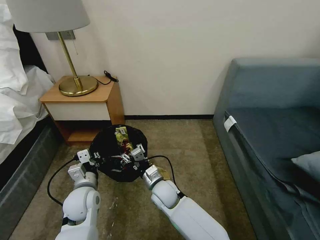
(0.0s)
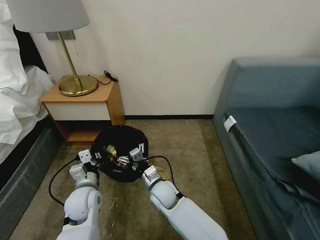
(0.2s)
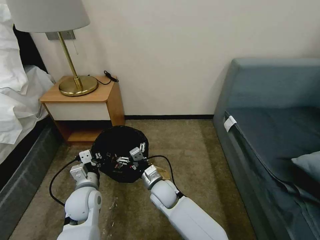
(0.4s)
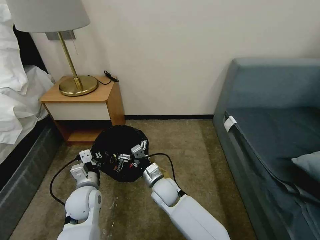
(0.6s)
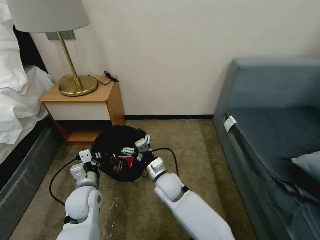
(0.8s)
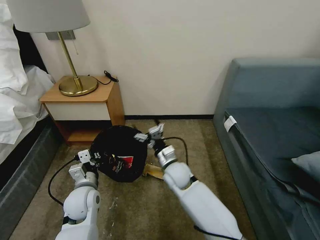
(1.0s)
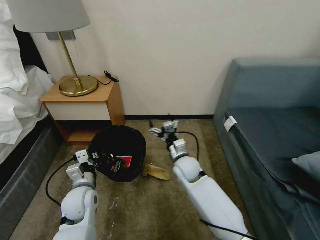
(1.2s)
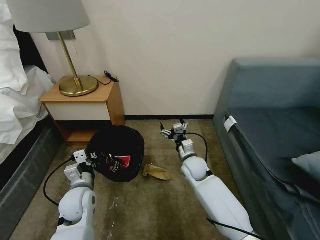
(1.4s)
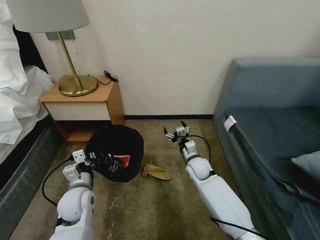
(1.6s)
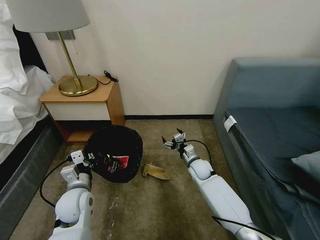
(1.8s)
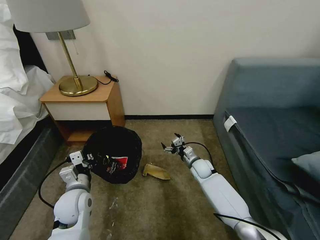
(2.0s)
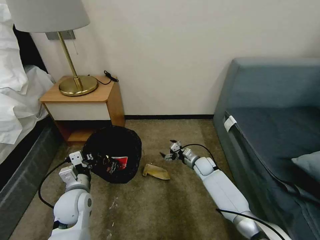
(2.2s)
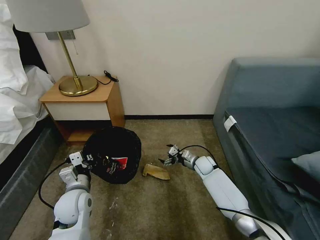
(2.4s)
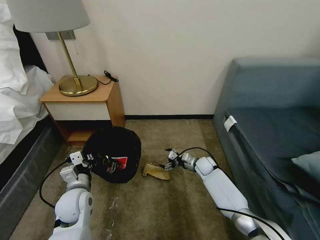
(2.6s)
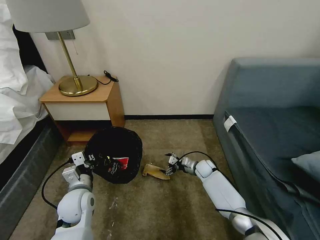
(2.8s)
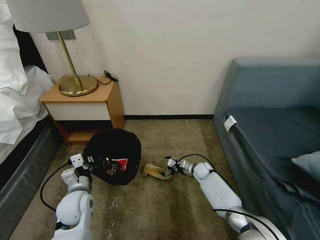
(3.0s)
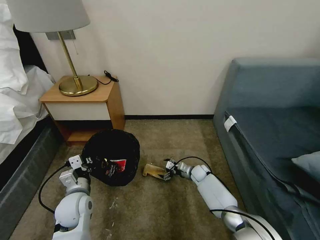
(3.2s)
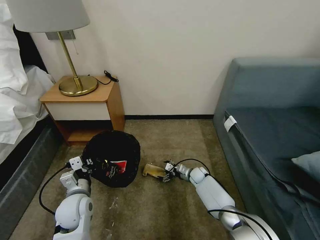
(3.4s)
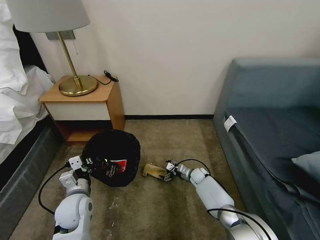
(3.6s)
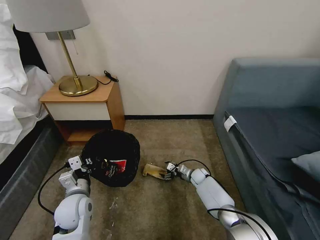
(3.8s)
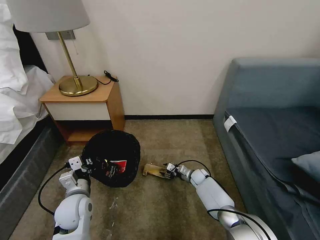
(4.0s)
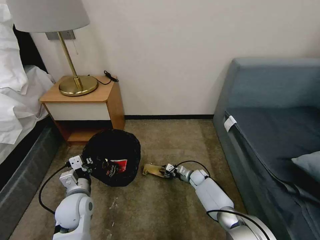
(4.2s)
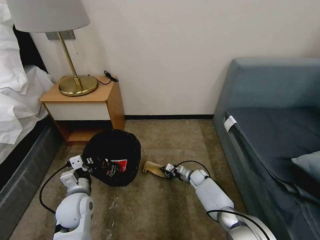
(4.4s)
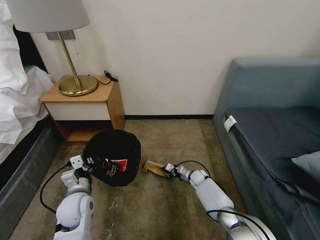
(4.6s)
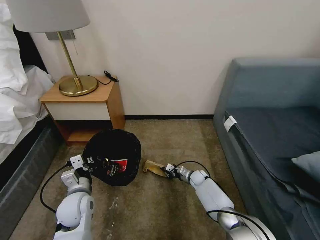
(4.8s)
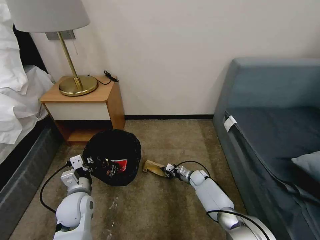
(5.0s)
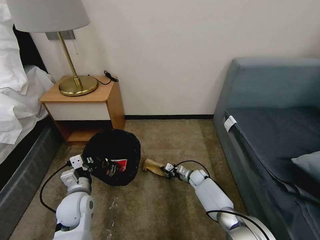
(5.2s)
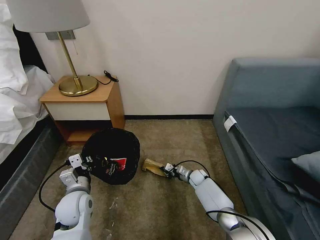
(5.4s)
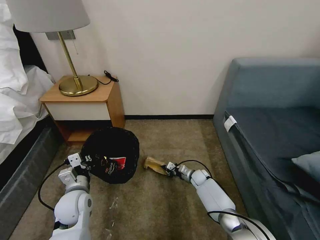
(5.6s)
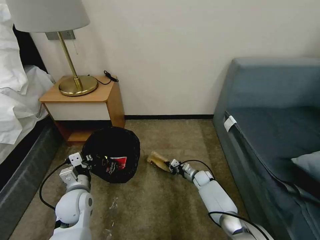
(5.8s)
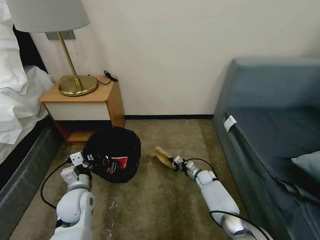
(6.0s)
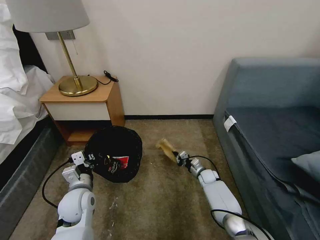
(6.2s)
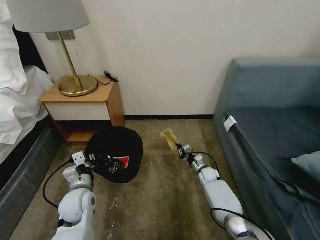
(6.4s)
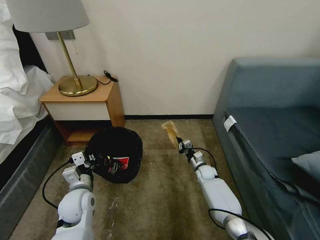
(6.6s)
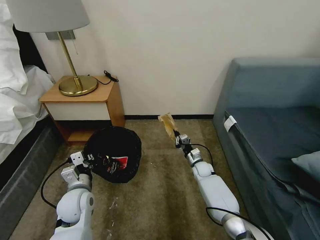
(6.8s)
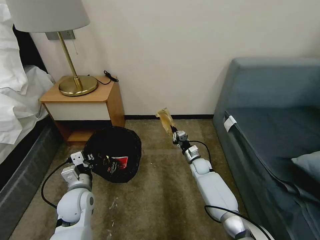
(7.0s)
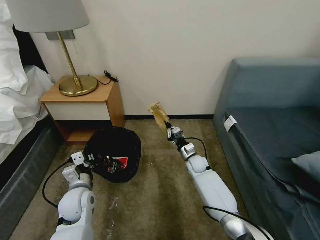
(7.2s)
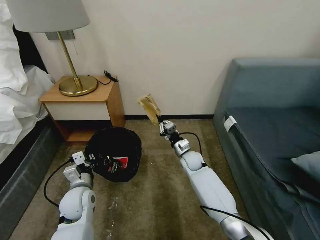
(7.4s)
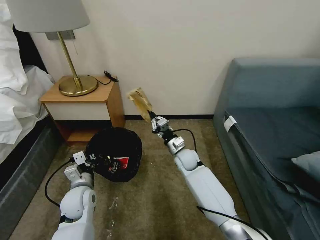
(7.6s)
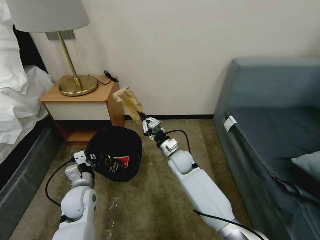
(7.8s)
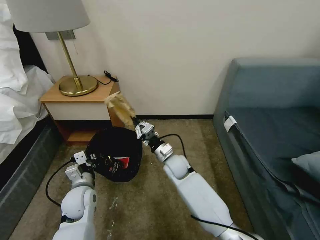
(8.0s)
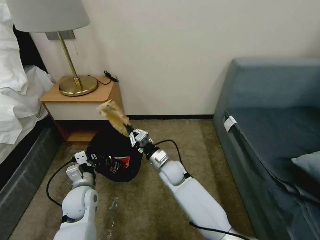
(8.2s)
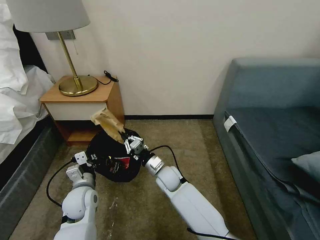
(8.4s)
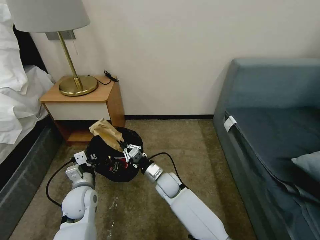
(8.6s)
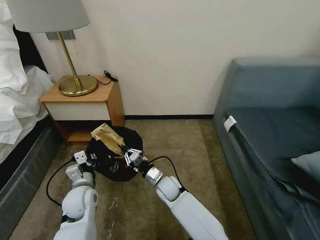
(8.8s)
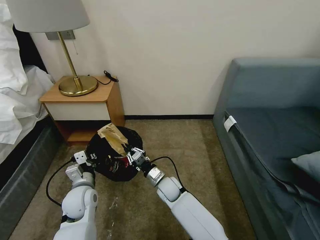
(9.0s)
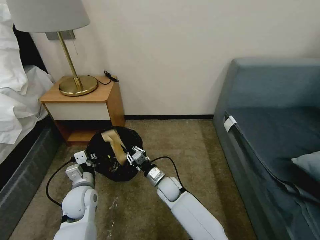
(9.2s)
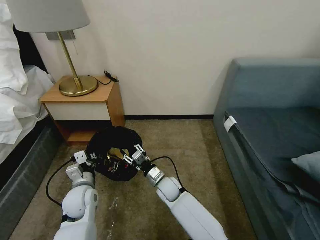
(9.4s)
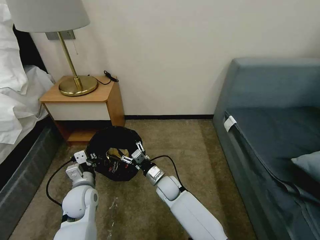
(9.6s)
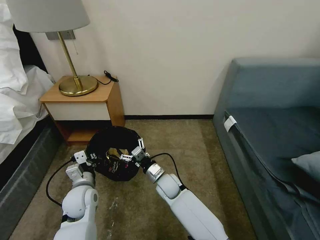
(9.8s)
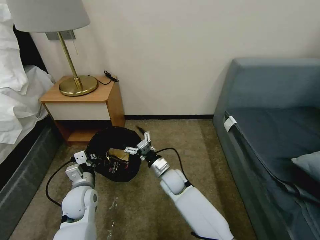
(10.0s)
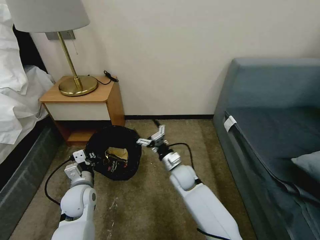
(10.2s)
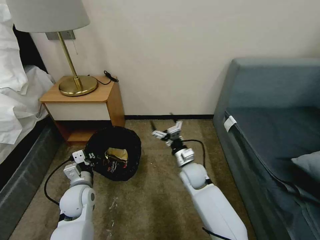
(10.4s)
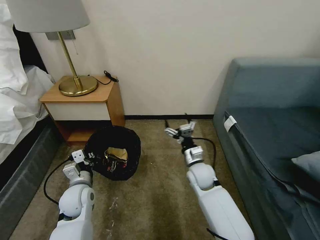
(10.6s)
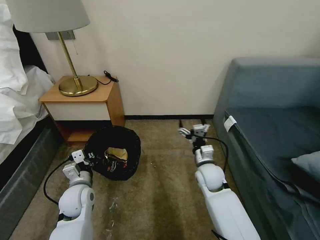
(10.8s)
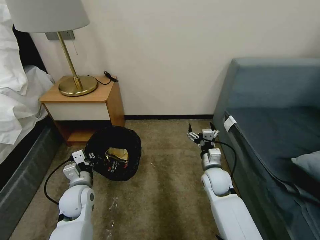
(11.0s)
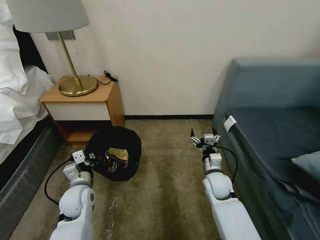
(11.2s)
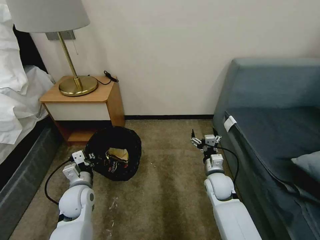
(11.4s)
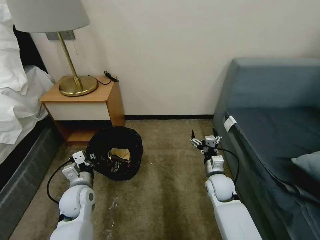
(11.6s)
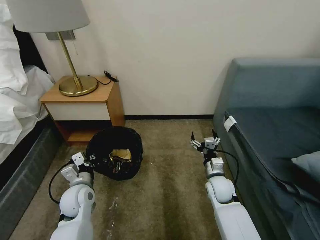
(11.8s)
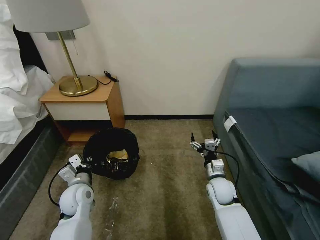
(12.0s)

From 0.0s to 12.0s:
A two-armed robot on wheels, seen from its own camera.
Task of the whole recording: Pick up the trash bin, then pick up the garbage on the floor and place it into the trash bin.
From 0.0s to 1.6s: The right gripper shifts approximately 20 cm to the right and forward.
From 1.6s to 3.0s: The right gripper travels downward, to the right and forward by some 15 cm.
From 3.0s to 4.4s: The right gripper closes up.
From 4.4s to 6.0s: The grippers move only a little.
From 6.0s to 7.6s: The right gripper goes roughly 20 cm upward and to the left.
From 7.6s to 9.0s: The right gripper moves backward, to the left and downward, roughly 15 cm.
From 9.0s to 10.4s: The right gripper moves to the right and upward, about 10 cm, and opens its fingers.
From 10.4s to 12.0s: The right gripper is displaced to the right by some 10 cm.

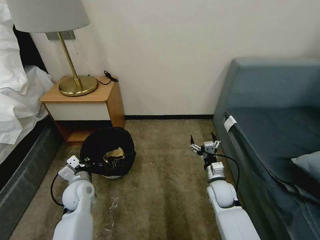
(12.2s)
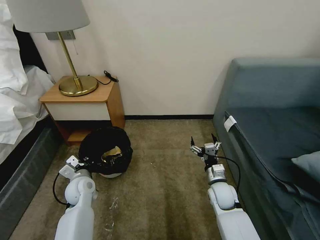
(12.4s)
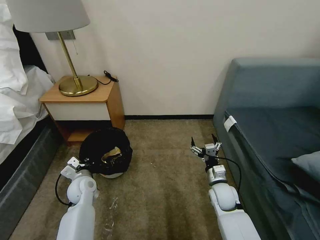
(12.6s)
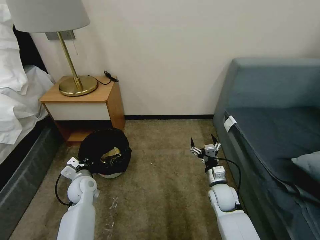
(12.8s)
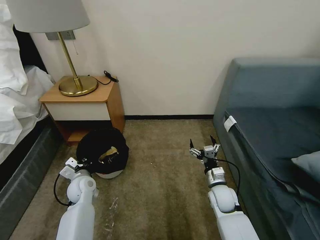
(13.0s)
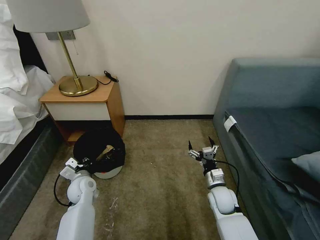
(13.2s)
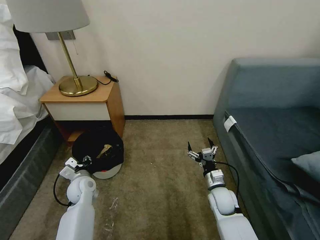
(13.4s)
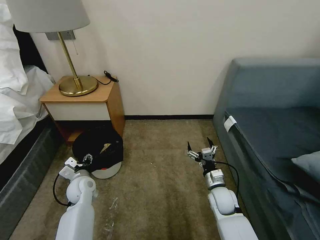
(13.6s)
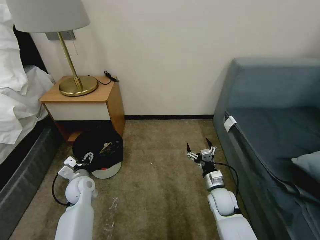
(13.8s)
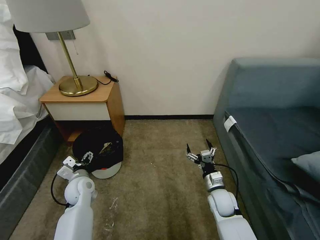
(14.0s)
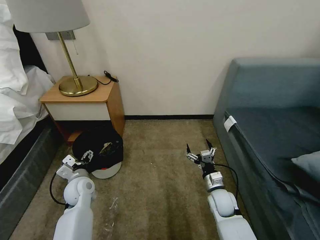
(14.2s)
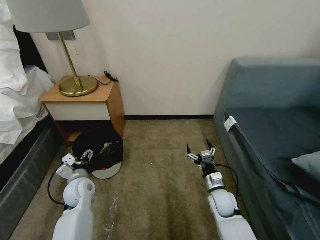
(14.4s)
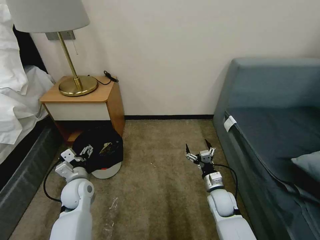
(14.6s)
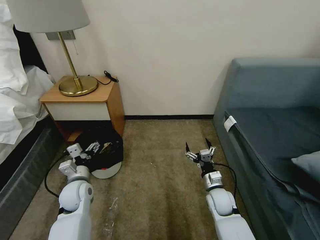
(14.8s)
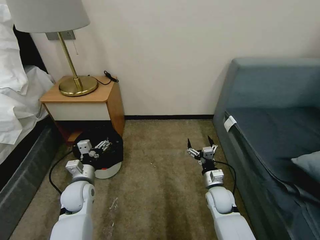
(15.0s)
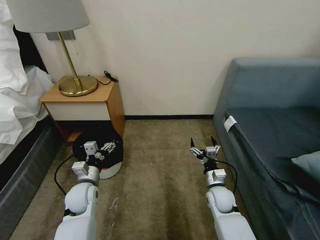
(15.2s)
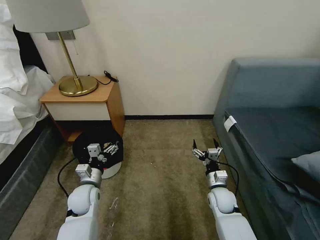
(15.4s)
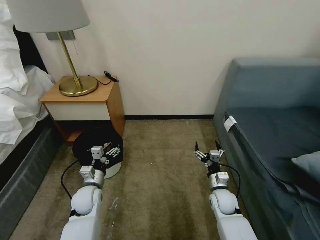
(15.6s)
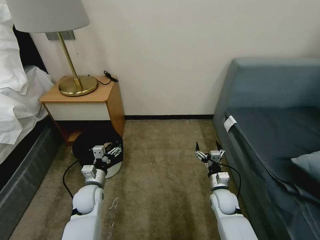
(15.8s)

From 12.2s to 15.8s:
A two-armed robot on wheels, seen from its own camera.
Task of the whole recording: Pick up the trash bin, then pick up the garbage on the floor and place it into the trash bin.
From 12.2s to 14.0s: The left gripper opens.

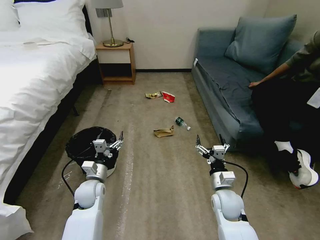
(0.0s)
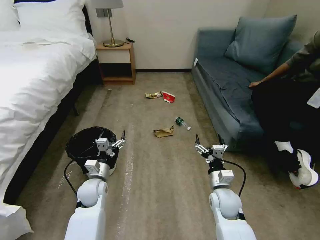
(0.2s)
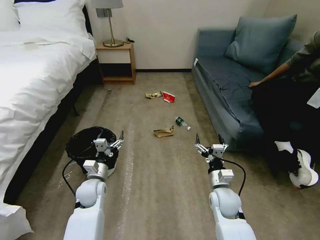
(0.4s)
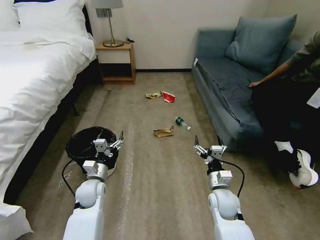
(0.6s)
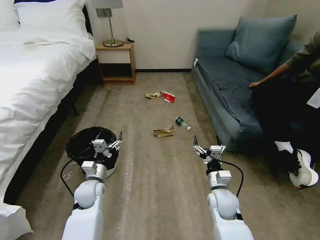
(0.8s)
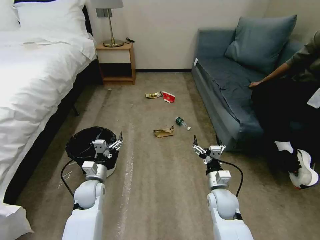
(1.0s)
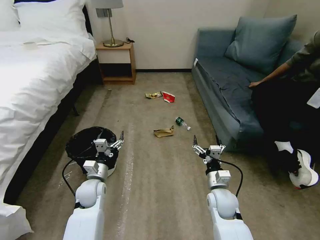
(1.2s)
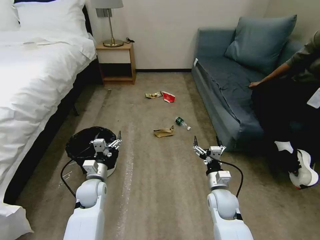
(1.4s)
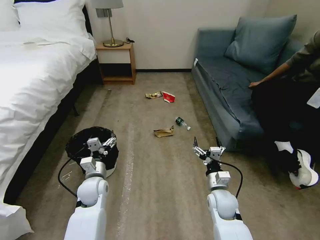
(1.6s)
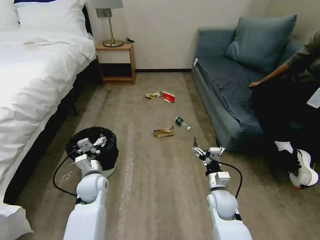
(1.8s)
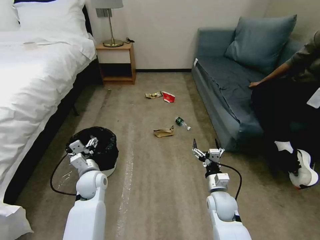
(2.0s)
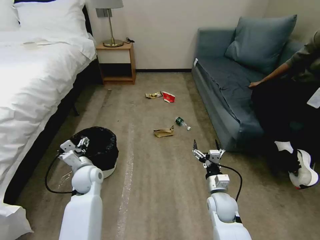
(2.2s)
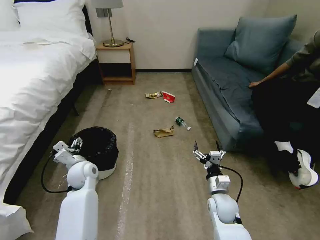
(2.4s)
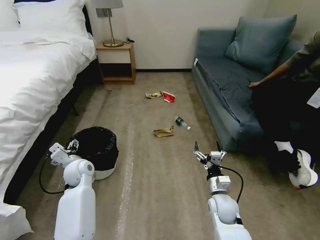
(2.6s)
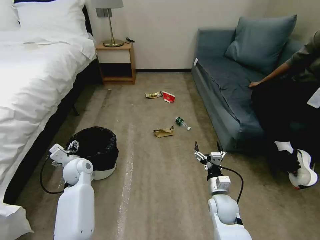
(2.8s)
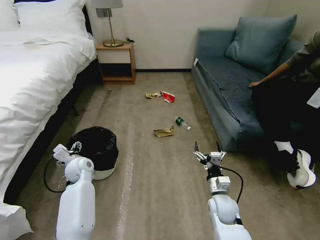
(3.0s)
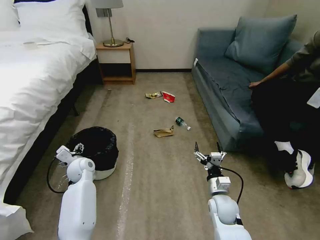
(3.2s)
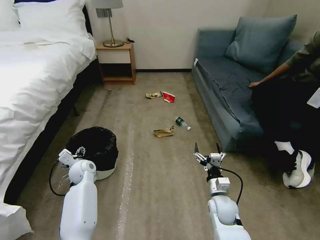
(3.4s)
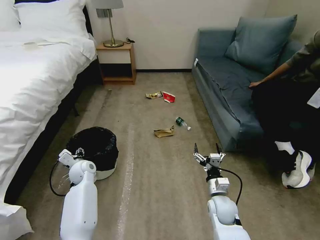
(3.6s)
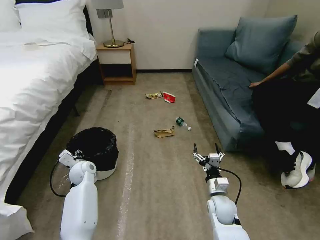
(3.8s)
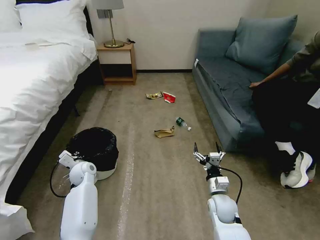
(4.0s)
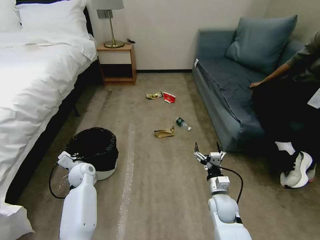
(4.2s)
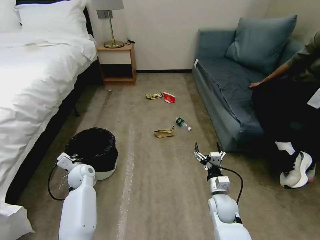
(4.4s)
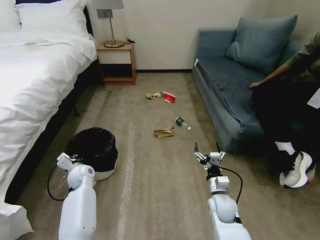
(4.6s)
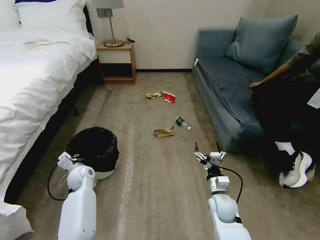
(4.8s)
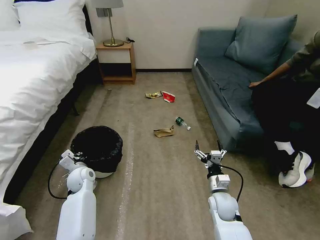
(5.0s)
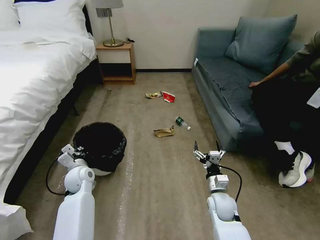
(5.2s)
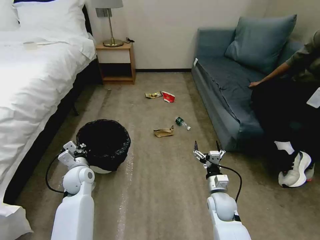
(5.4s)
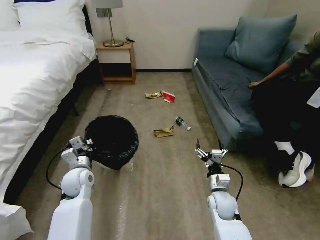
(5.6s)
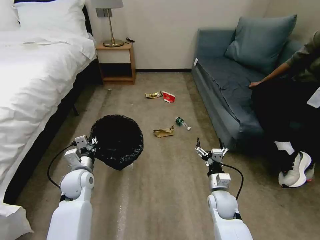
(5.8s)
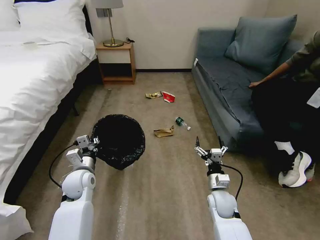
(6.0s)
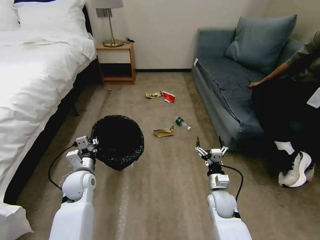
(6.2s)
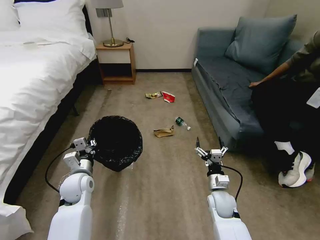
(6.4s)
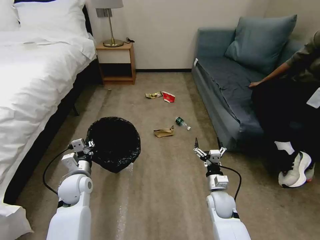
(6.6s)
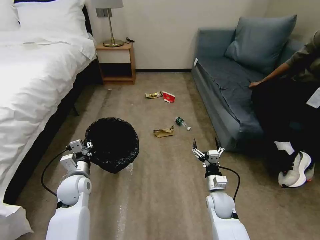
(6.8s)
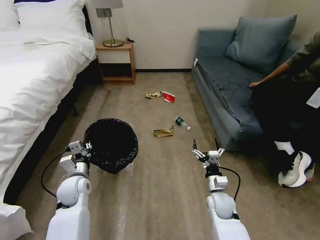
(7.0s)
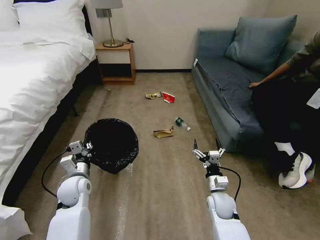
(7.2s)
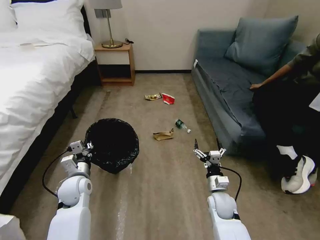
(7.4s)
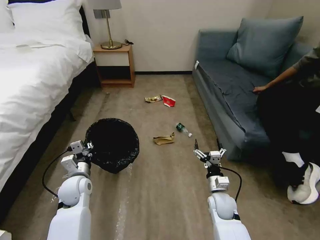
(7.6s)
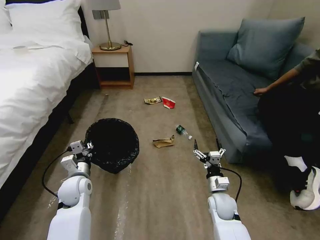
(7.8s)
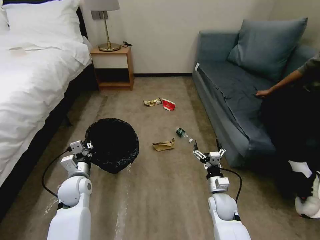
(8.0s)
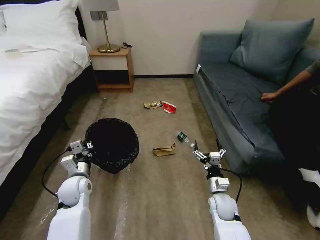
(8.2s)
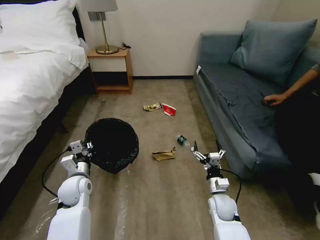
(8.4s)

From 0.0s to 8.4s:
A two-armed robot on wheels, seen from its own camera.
Task of the whole recording: Pick up the trash bin, then pick up the garbage on the floor and place it into the trash bin.
From 1.4s to 2.8s: The left gripper shifts approximately 10 cm forward and to the left.
From 2.8s to 4.2s: The left gripper shifts some 5 cm downward, and closes up.
From 4.2s to 5.6s: The left gripper heads upward and backward, covering about 10 cm.
From 5.6s to 7.0s: The grippers move only a little.
